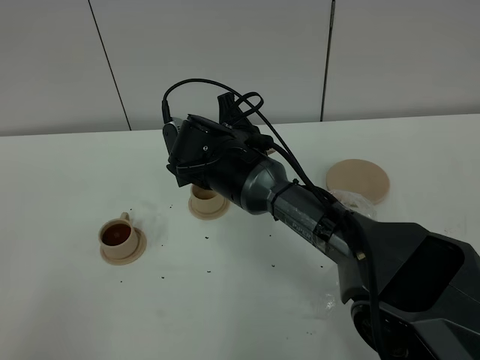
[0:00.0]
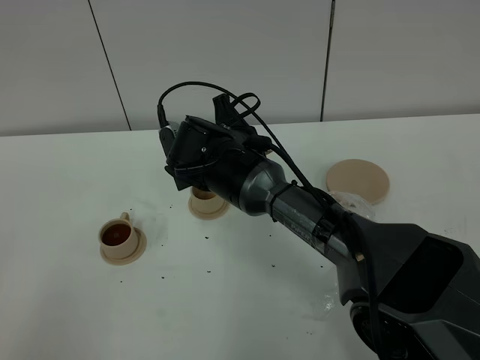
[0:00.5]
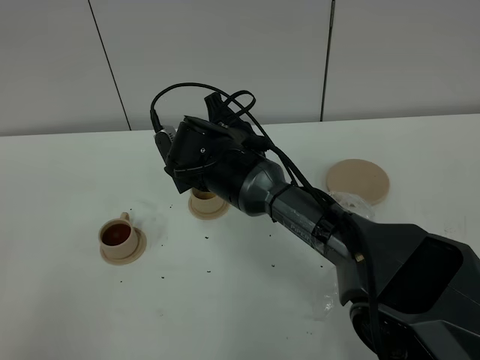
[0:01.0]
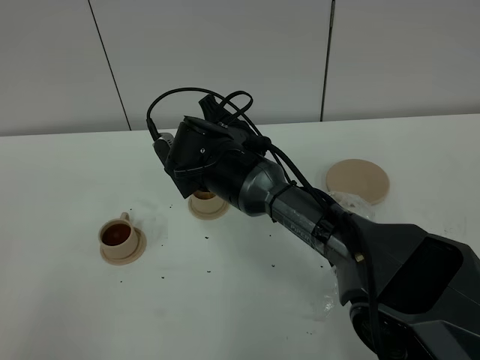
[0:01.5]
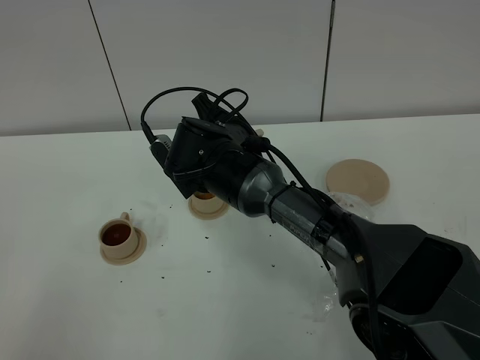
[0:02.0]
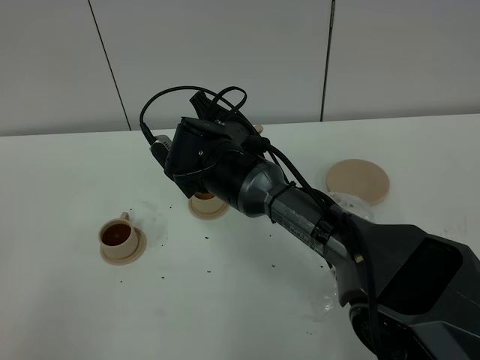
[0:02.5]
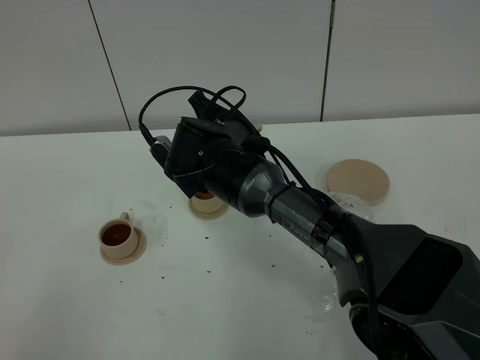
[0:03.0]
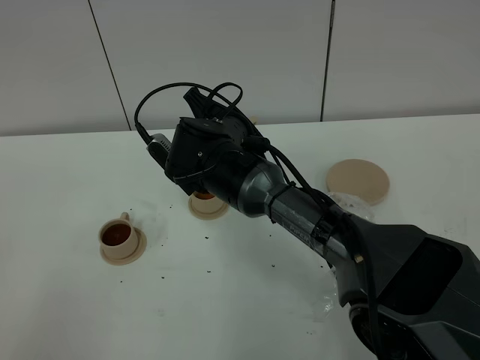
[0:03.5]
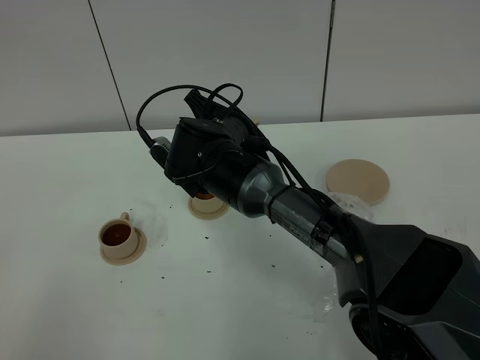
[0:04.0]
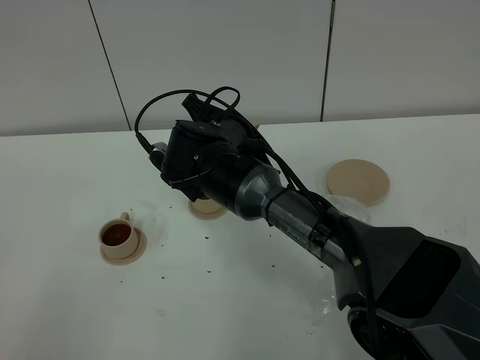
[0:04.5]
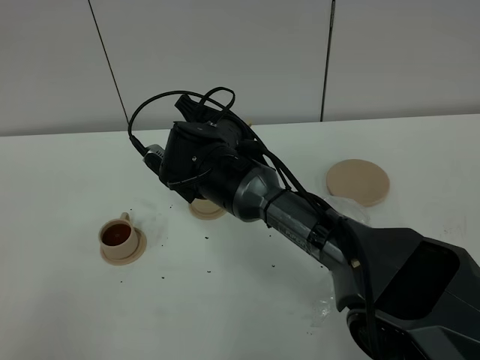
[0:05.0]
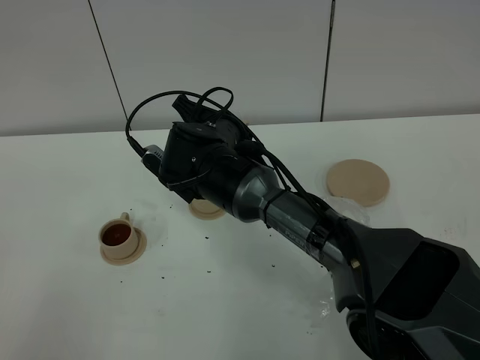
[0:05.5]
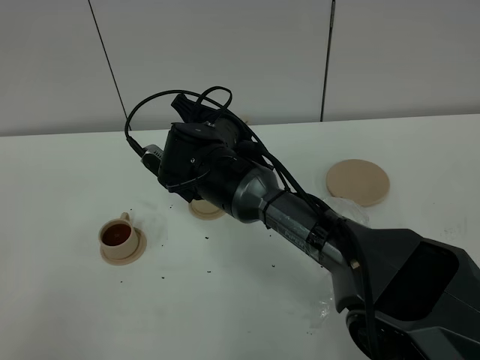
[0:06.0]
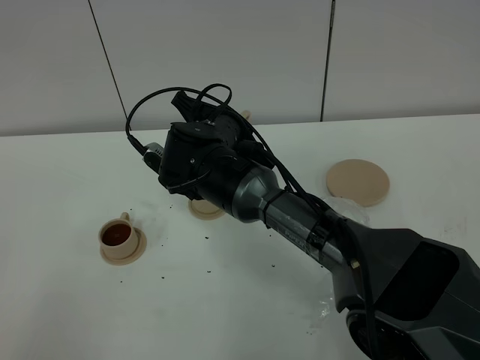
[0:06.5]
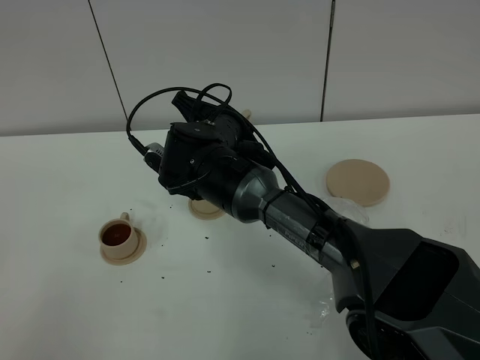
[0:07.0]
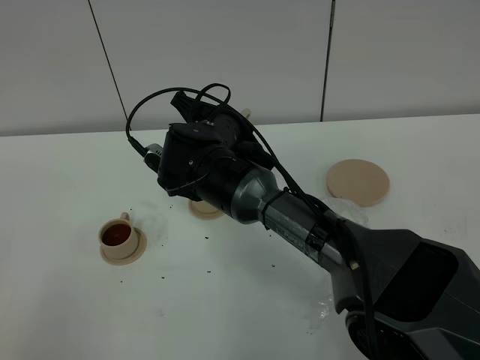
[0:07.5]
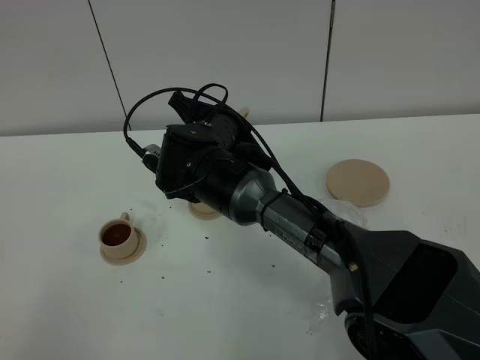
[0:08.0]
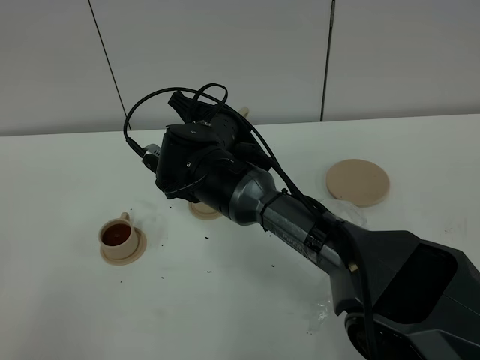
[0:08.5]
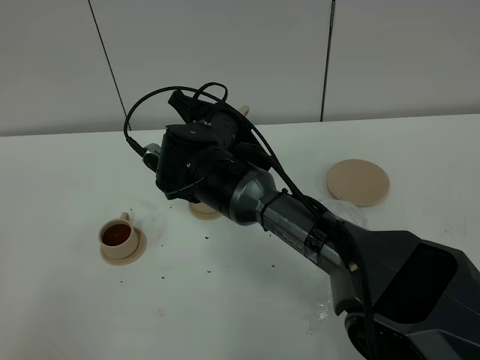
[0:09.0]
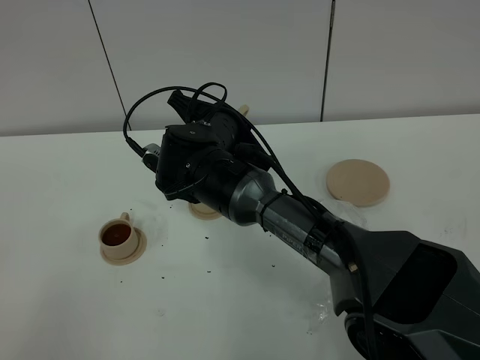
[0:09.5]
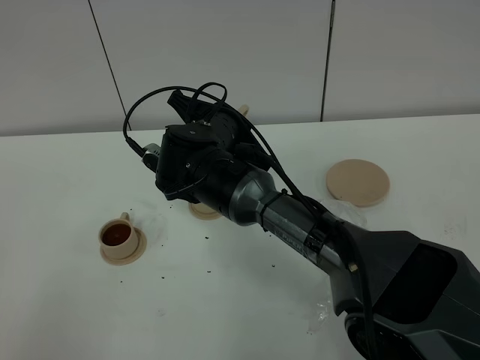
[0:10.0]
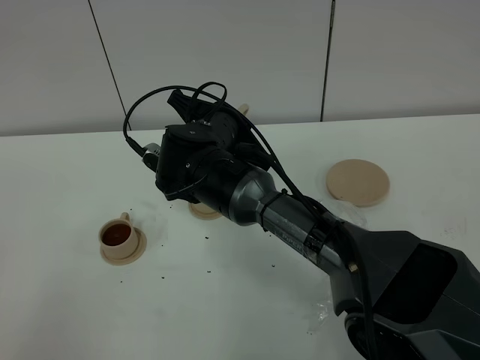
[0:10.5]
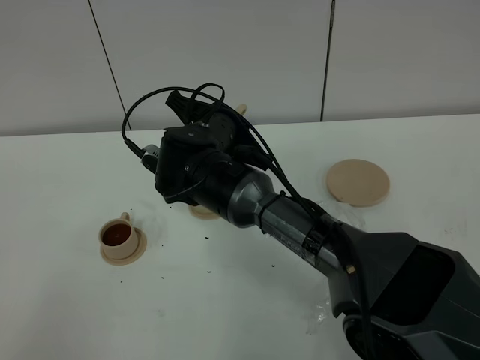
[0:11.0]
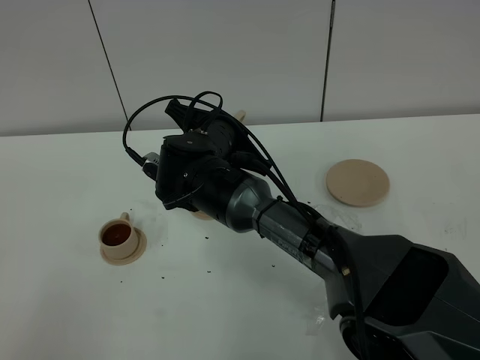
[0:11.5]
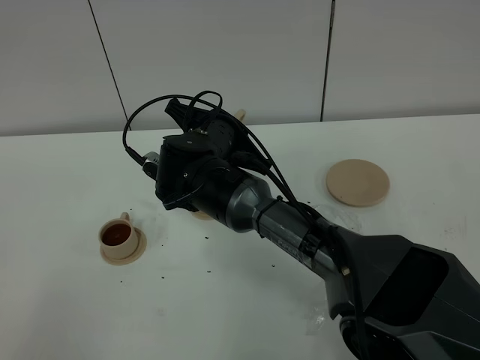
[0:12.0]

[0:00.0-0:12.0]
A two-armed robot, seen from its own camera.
Task of the whole recording: grasp the brown teapot and pour the tea into the two brown teacups one by one, put the brown teapot back in its original place.
0:02.0 to 0:06.0: The grippers move only a little.
0:06.0 to 0:08.0: Neither gripper changes place.
0:08.0 to 0:12.0: The two grippers keep their place.

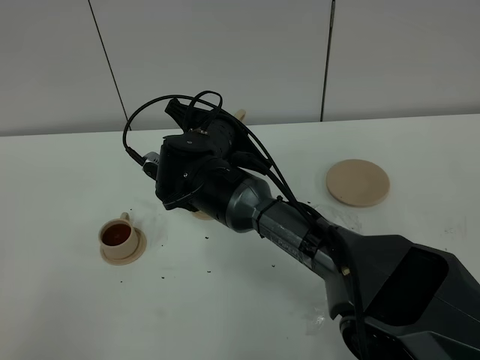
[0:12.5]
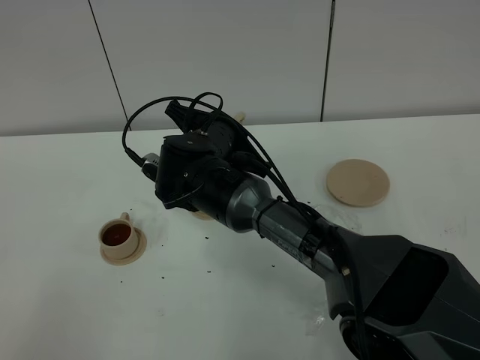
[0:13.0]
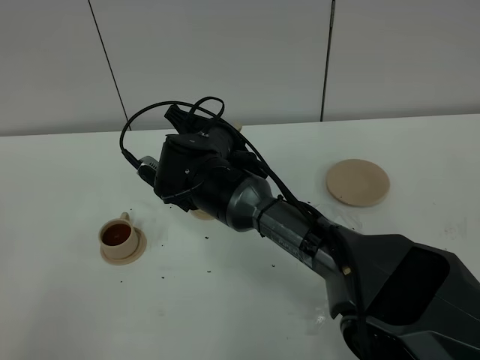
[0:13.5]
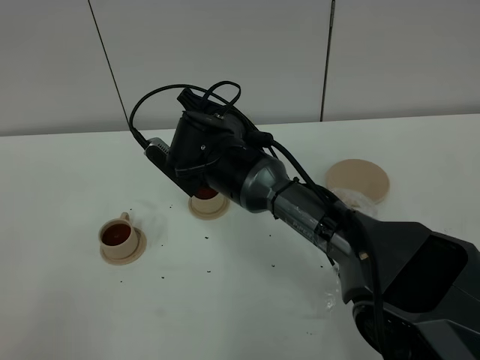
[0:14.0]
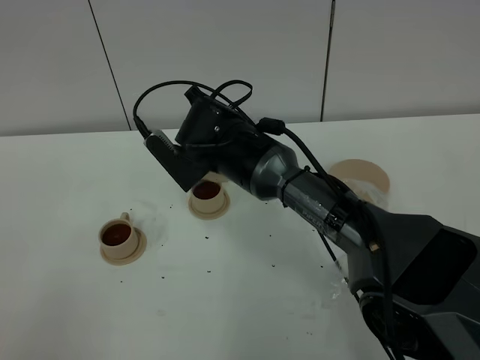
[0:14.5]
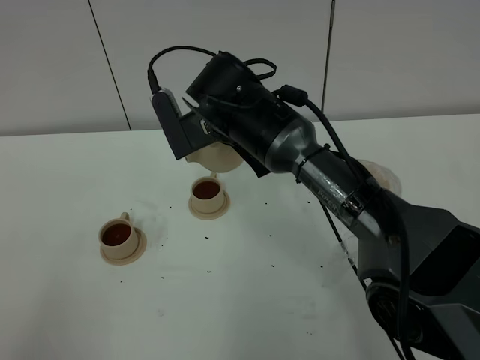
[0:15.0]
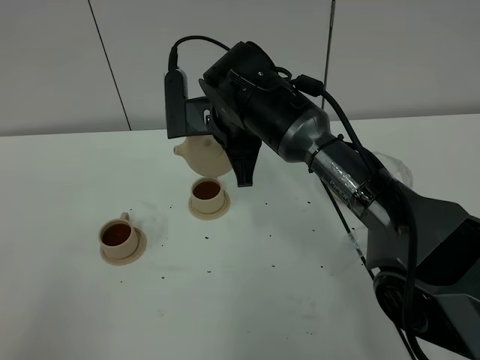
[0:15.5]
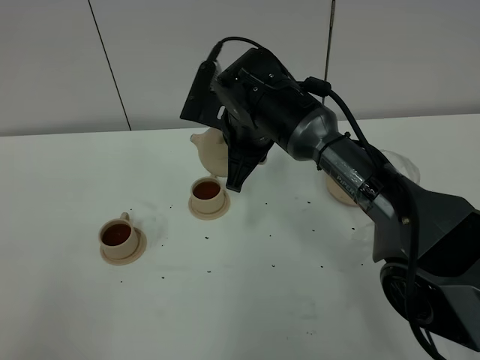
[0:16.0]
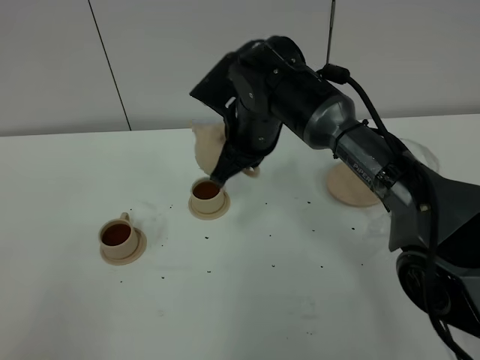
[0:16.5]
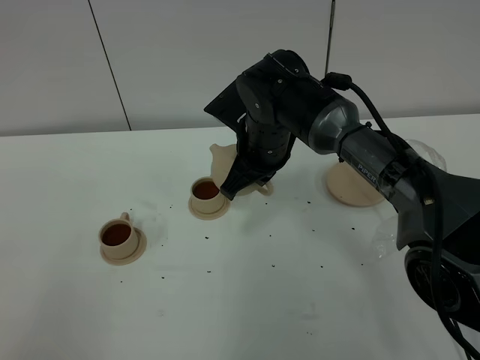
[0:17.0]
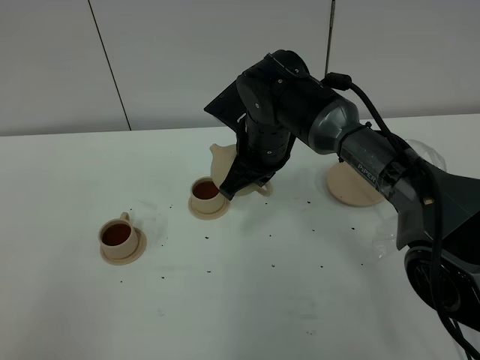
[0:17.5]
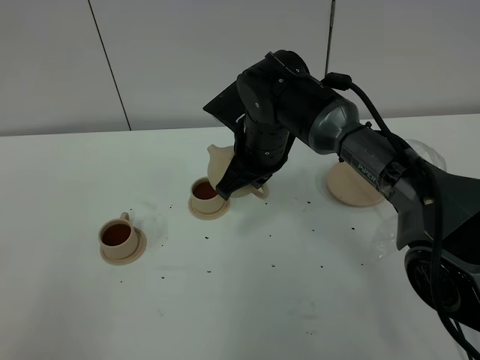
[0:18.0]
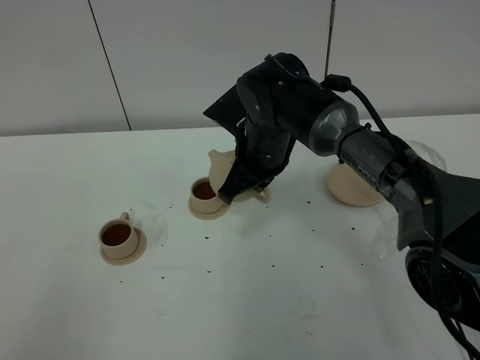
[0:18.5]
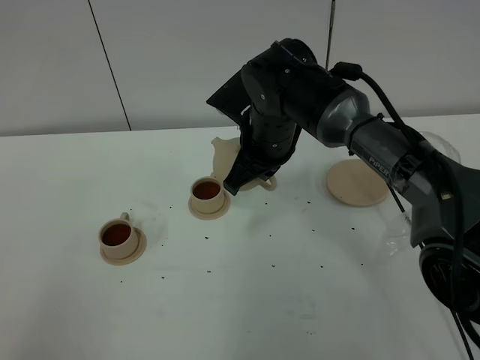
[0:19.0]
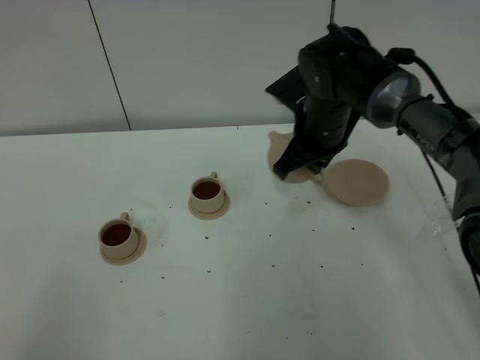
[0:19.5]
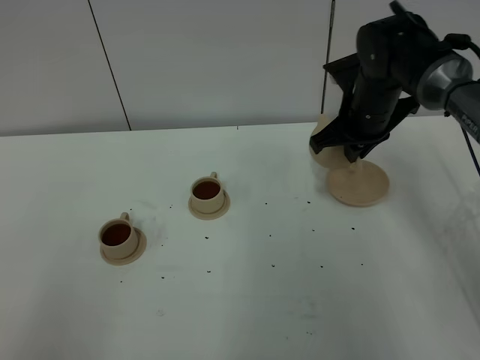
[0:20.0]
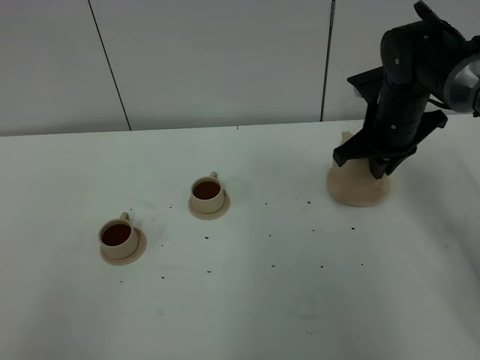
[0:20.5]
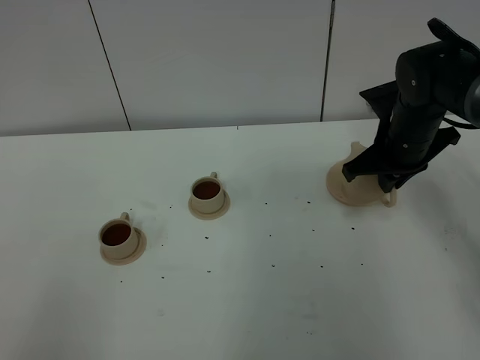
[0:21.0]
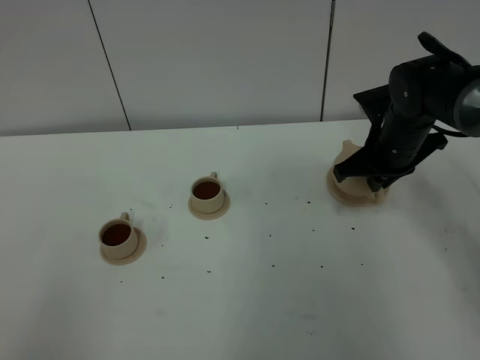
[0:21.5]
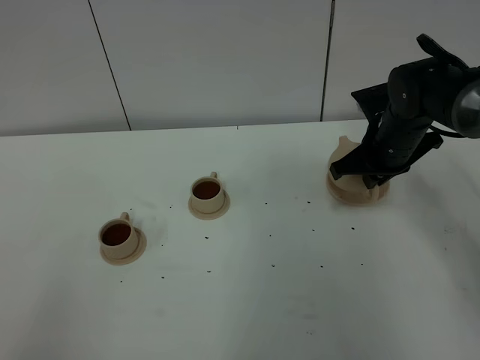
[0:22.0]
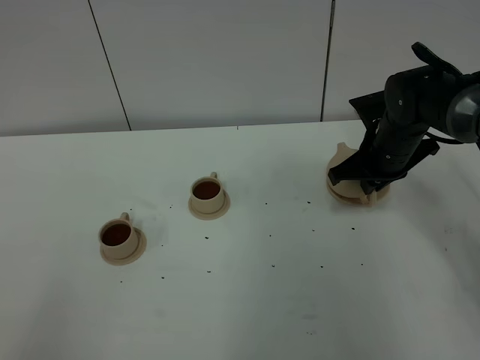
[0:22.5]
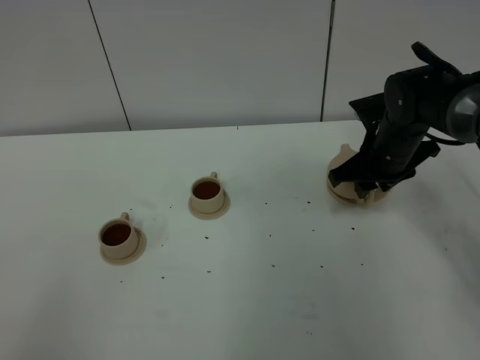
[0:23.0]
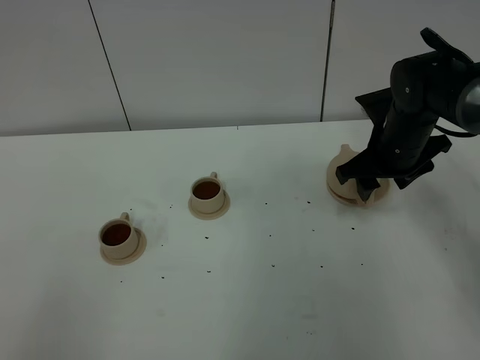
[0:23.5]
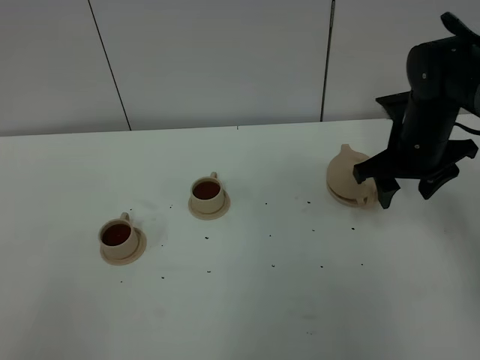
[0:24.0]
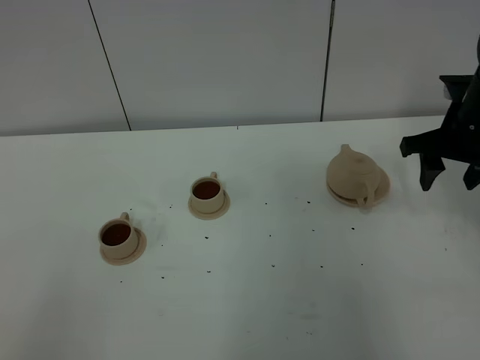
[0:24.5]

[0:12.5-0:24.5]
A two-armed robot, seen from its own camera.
Task of the whole recording: grasp the brown teapot and pour the tea into the two brown teacups one by one, put the brown teapot back in its original place.
0:16.5 to 0:18.5: The grippers make only small movements.
0:18.5 to 0:20.5: The right gripper goes approximately 15 cm to the right.
0:20.5 to 0:22.5: The grippers stay close to where they were, moving slightly.
0:22.5 to 0:24.5: The right gripper heads to the right and upward, covering roughly 10 cm, and opens.

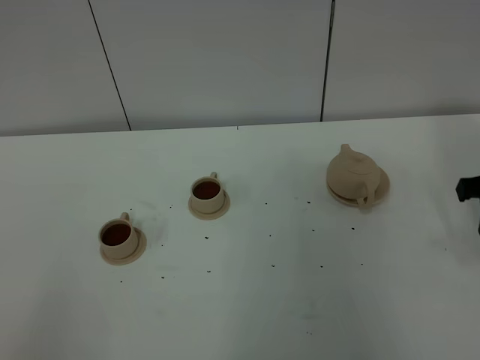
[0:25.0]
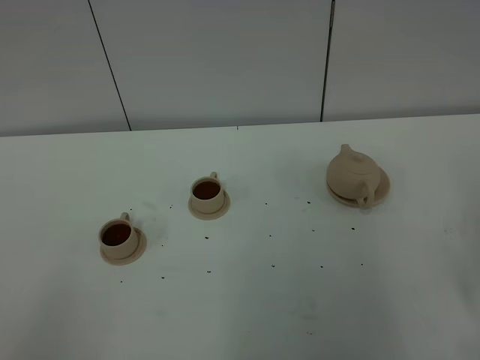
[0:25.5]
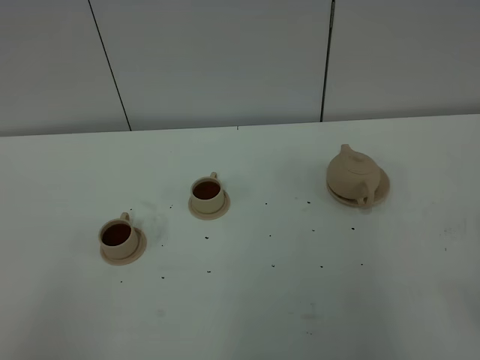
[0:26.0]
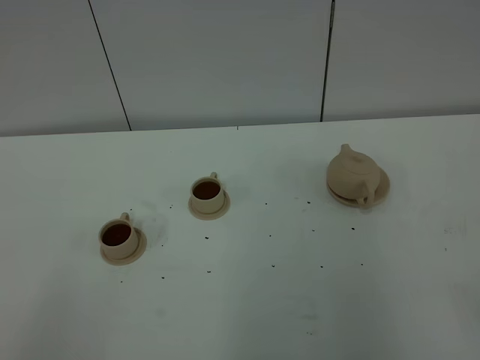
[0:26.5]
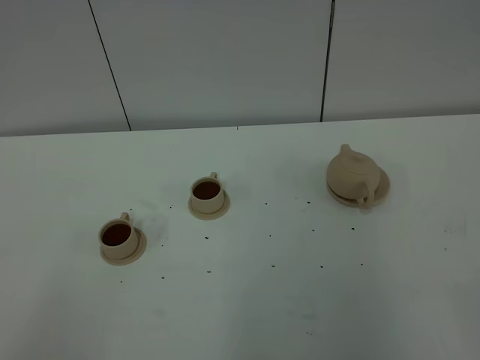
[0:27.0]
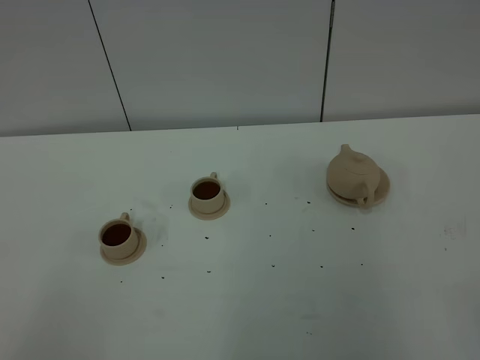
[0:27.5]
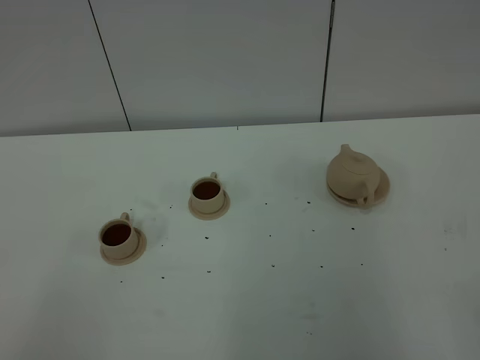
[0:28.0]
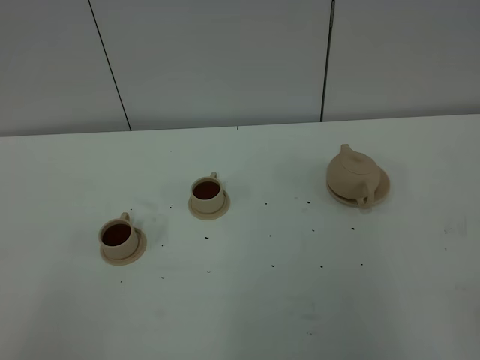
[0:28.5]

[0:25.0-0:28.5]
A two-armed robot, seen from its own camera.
Task of the whole recording: grasp the brown teapot and pour the tea into the two brown teacups one by one, put the brown teapot back in its original place.
0:27.0 to 0:28.5: The two grippers keep their place.
